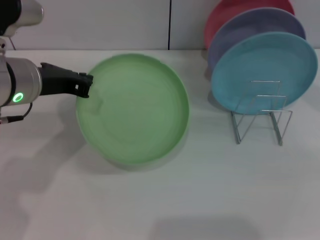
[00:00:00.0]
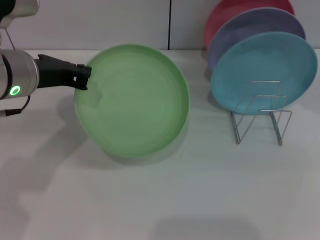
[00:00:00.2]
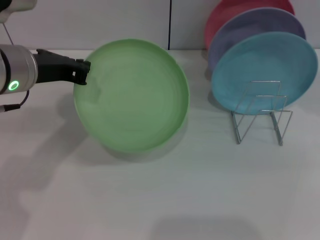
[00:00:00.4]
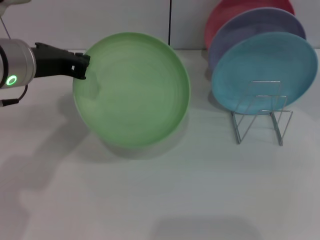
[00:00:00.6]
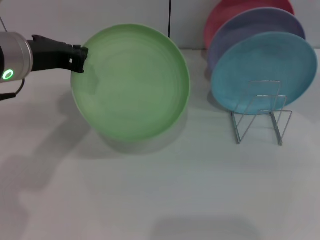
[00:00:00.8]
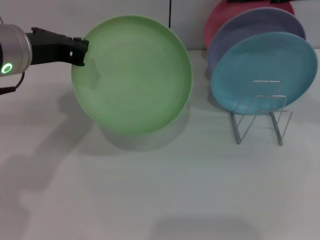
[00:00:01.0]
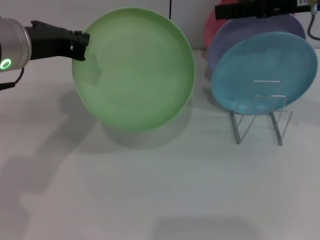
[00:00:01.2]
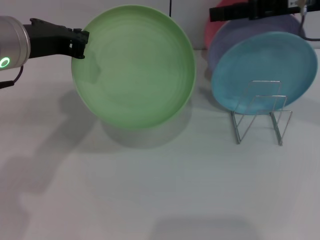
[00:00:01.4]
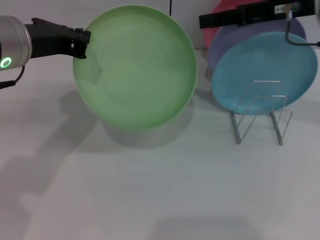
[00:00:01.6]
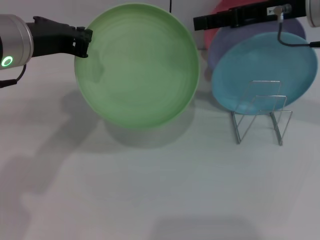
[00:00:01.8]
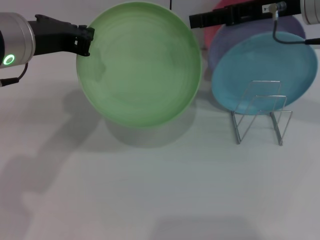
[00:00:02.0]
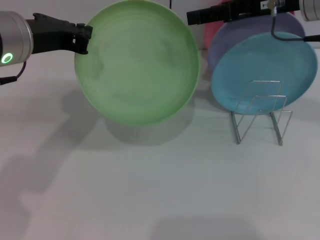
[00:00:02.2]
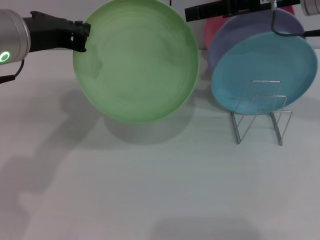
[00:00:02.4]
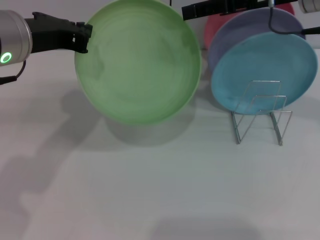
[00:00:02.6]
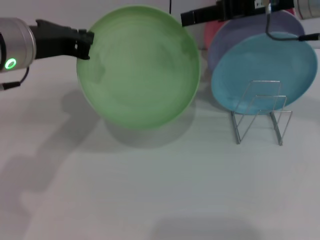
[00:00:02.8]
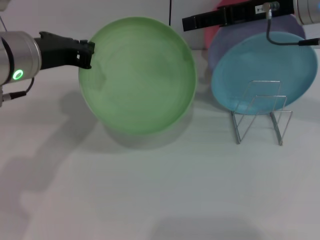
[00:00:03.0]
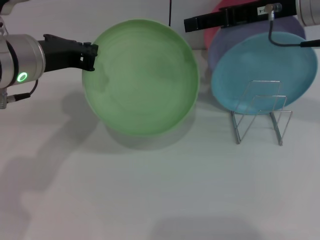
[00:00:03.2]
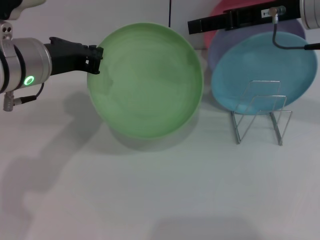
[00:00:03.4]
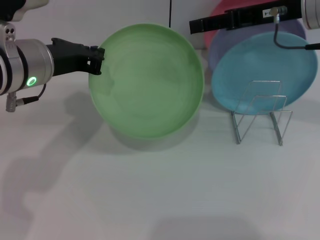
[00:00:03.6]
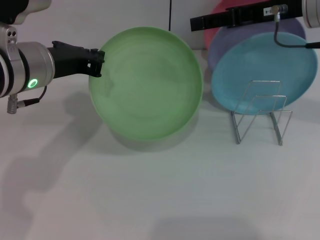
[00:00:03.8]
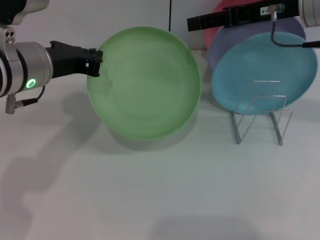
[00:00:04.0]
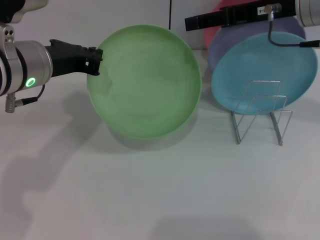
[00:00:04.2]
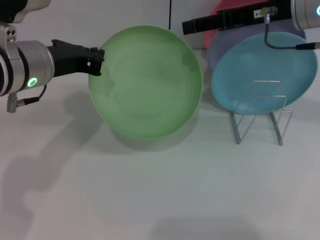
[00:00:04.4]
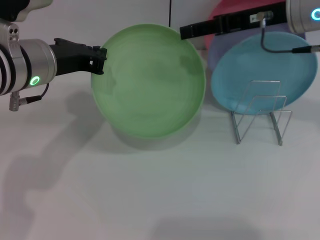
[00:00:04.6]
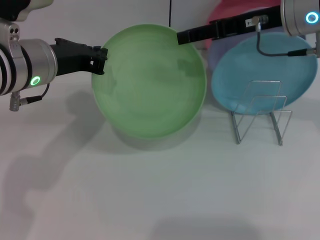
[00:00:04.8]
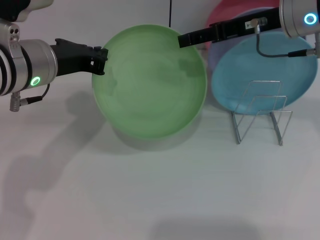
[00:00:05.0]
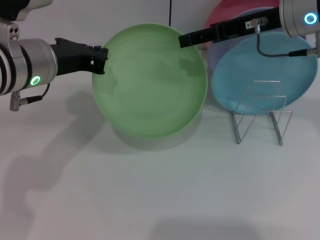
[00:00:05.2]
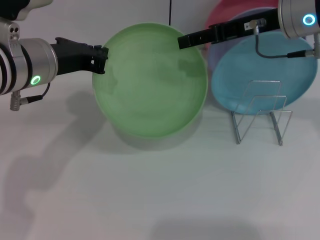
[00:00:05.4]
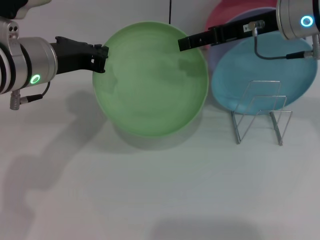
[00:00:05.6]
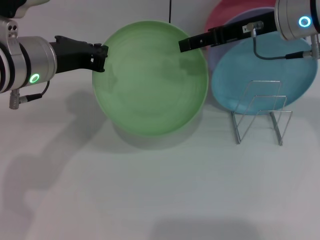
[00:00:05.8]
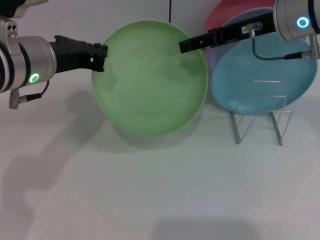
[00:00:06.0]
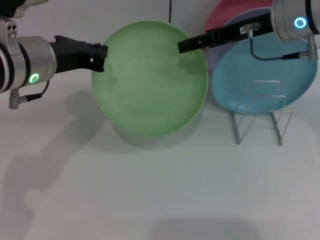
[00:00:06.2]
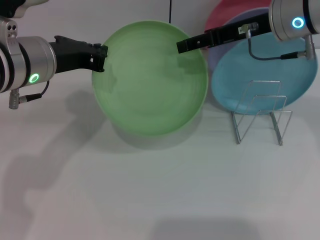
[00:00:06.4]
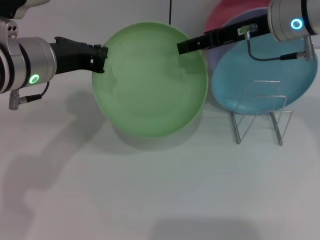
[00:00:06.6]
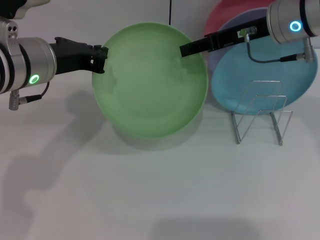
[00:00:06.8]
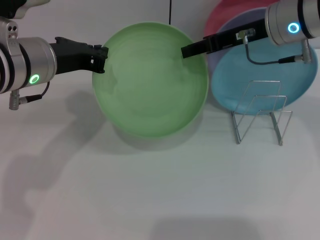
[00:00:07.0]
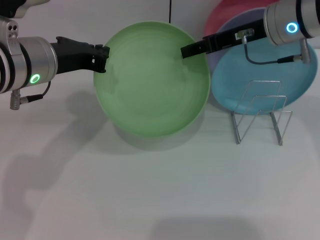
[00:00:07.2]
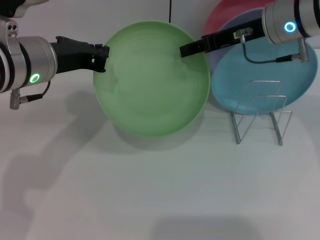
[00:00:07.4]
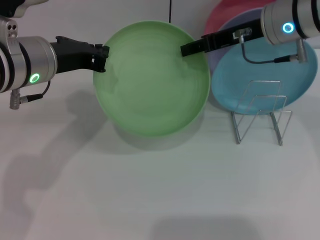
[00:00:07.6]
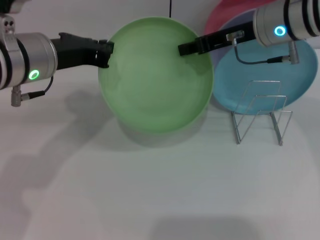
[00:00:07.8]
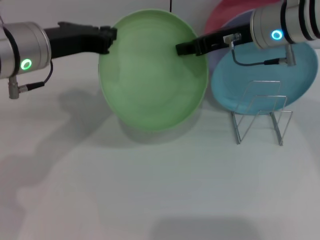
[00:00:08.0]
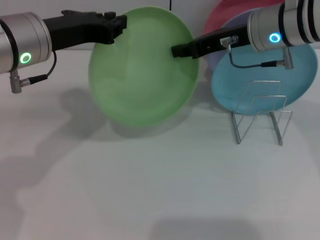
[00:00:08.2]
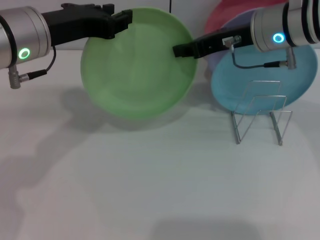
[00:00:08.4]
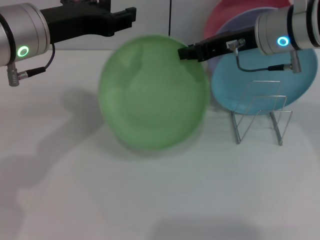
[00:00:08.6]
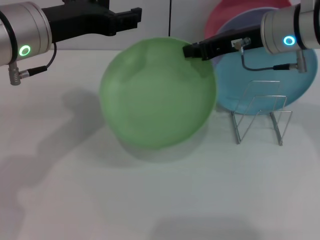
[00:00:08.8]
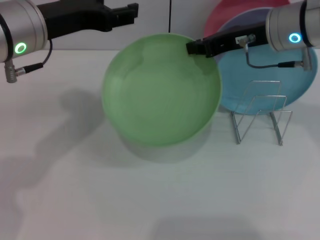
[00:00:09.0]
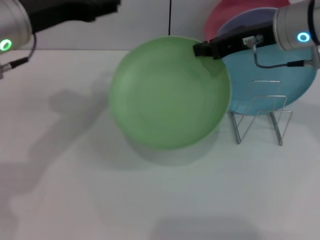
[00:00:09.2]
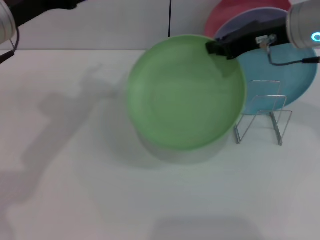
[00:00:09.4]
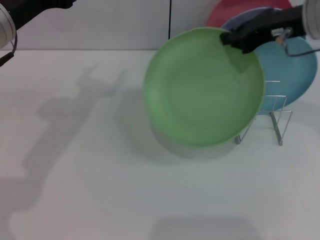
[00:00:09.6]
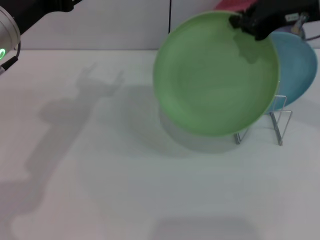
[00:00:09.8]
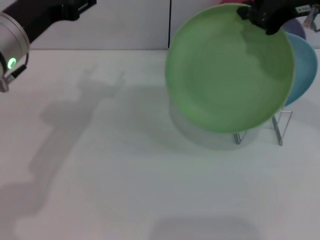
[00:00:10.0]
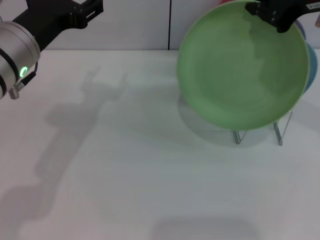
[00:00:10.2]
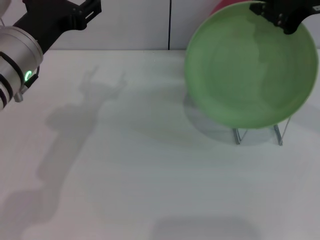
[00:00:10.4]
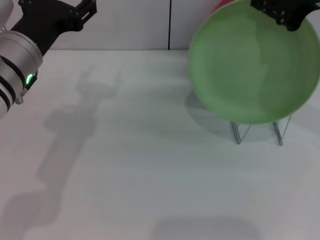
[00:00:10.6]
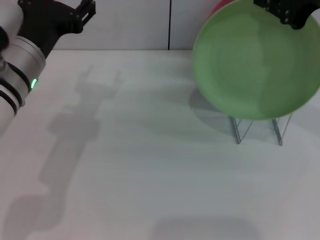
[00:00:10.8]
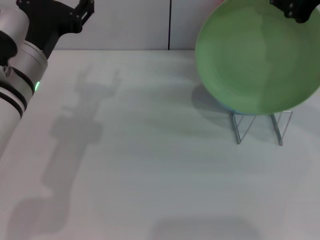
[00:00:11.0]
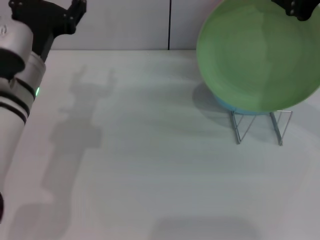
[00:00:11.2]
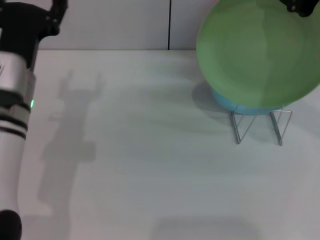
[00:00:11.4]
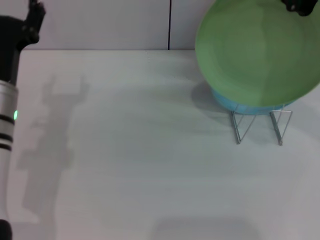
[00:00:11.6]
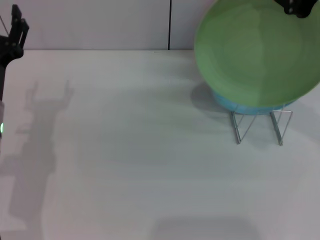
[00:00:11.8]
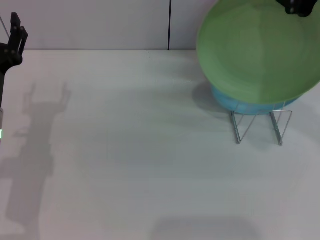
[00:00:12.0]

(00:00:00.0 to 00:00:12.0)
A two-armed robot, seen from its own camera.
Task of the whole recording: Grip the plate with one hand, pass it to the other, then set it on the shelf.
Step, 00:00:00.6 - 00:00:08.6: Pass the plate from the left gripper to the right gripper.
00:00:00.0 - 00:00:01.6: The right gripper is displaced to the left by about 10 cm.
00:00:01.6 - 00:00:06.0: The grippers move only a little.
00:00:06.0 - 00:00:07.6: The right gripper closes.
00:00:07.6 - 00:00:09.0: The left gripper opens, while the right gripper closes up.
00:00:09.0 - 00:00:10.4: The right gripper moves upward and backward, roughly 10 cm. Meanwhile the left gripper ends up roughly 5 cm from where it was.
00:00:10.4 - 00:00:12.0: The left gripper heads downward and to the left, covering roughly 10 cm.

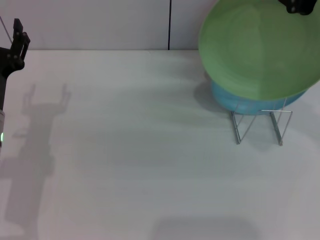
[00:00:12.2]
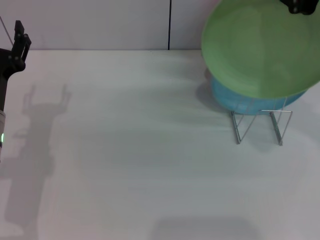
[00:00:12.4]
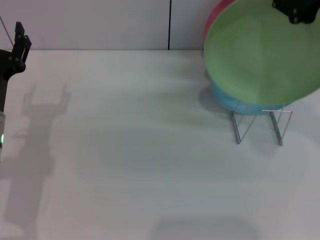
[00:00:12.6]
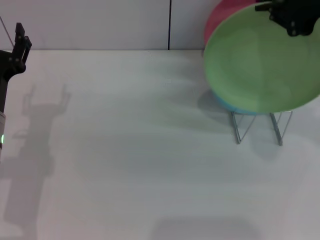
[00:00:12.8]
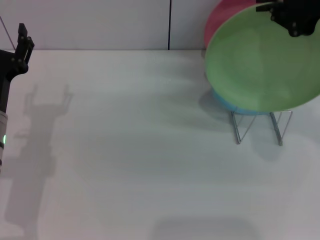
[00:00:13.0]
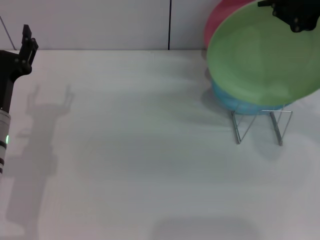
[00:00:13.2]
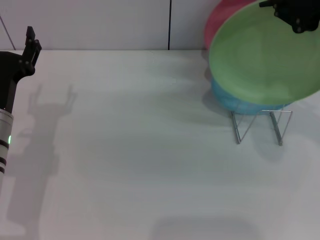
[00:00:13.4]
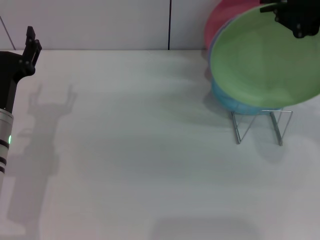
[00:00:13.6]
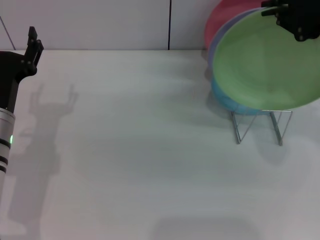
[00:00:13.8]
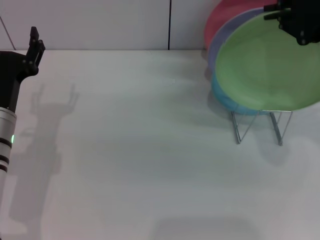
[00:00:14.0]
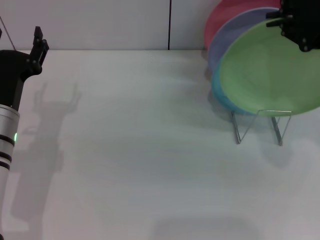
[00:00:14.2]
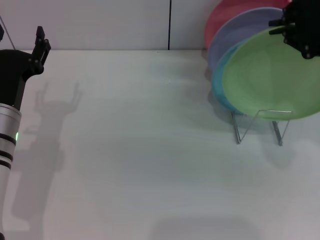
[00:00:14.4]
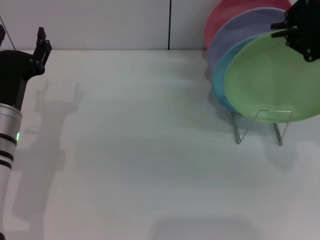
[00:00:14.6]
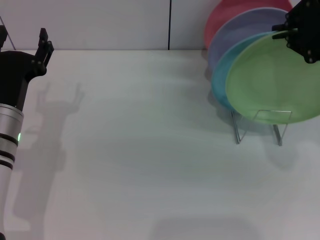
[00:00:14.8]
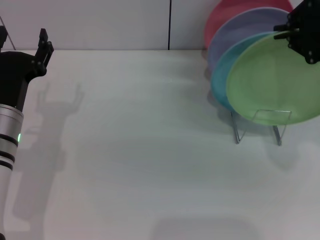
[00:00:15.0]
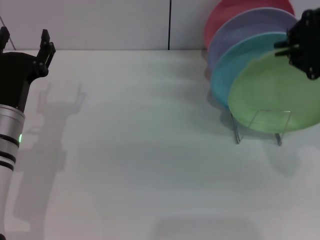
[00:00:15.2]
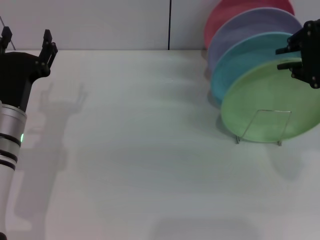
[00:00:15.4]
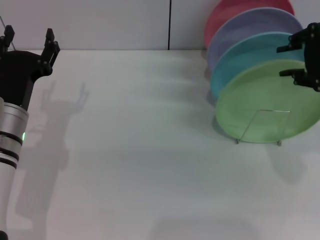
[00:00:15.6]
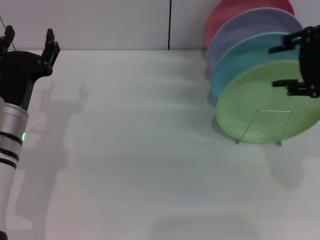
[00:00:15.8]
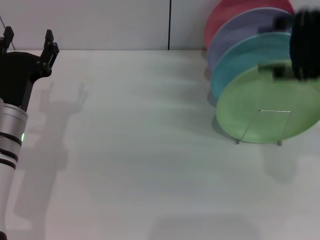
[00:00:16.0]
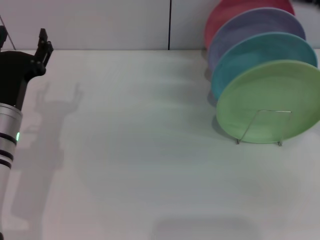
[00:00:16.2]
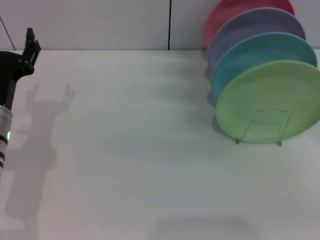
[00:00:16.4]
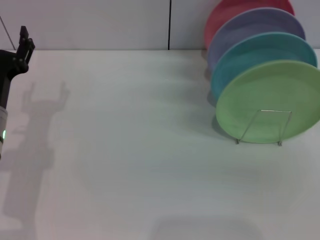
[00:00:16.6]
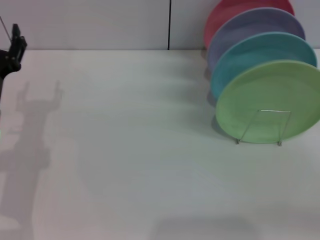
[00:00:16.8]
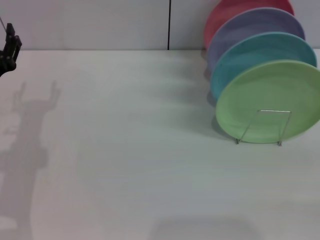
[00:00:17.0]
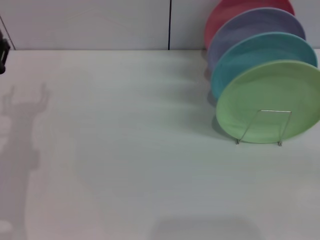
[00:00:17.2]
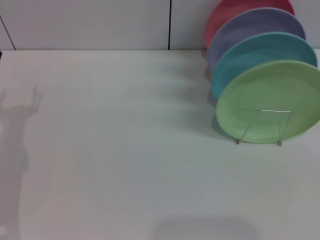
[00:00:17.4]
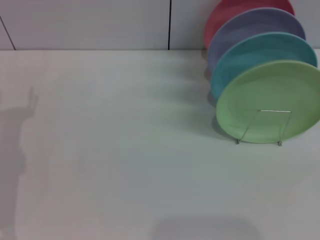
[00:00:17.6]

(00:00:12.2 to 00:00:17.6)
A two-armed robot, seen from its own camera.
Task of the whole recording: Grip the plate with one hand, pass it to the other, then set it on the shelf.
Step, 00:00:12.2 - 00:00:16.0: Place the plate on the shelf with the right gripper.
00:00:12.2 - 00:00:13.6: There are only small adjustments of the grippers.
00:00:13.6 - 00:00:15.0: The grippers move only a little.
00:00:15.0 - 00:00:16.2: The right gripper opens.
00:00:16.2 - 00:00:17.6: The left gripper moves to the left, some 5 cm.
